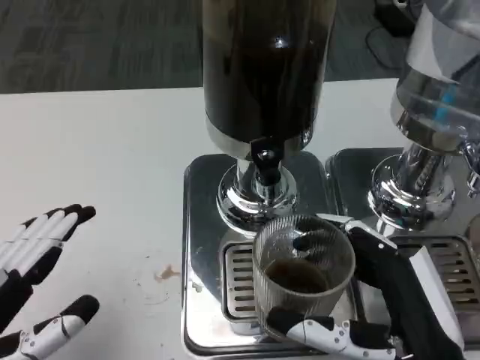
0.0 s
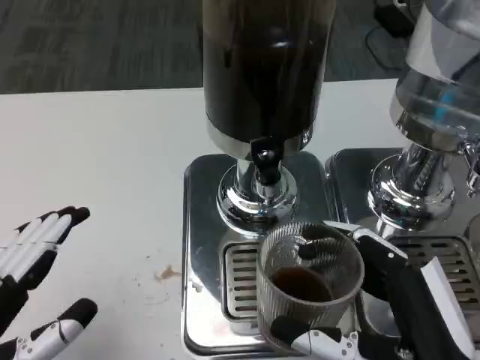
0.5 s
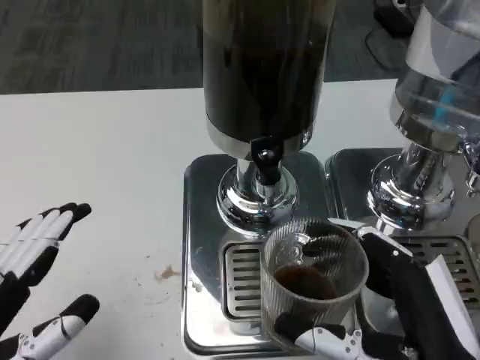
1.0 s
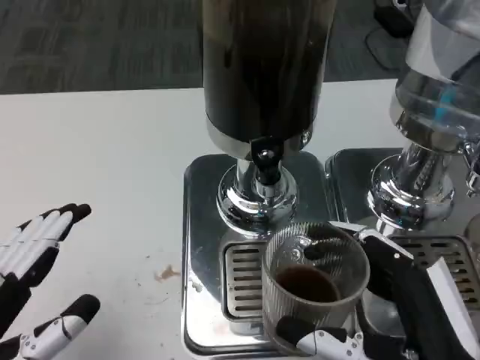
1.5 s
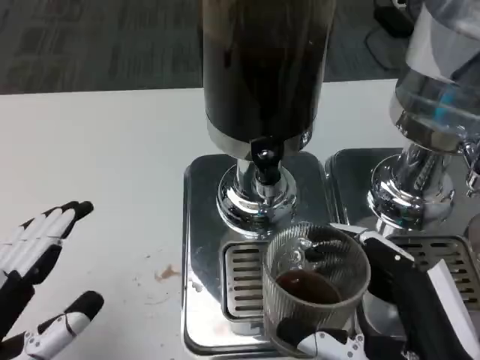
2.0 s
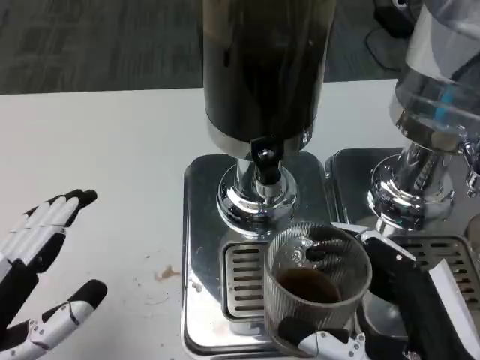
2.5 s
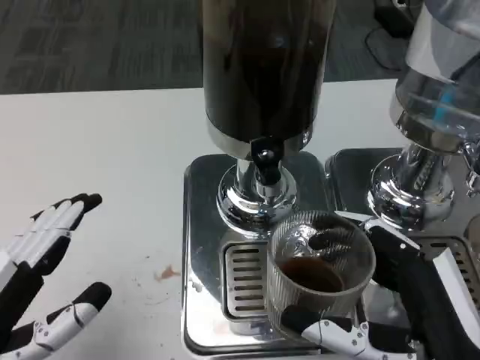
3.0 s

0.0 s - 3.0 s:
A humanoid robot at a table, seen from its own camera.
Task of the whole recording: Grasp the cup under the faucet to collect the drink, then remove the cup.
0.0 s - 1.5 s: The hands make only small movements.
1.5 s - 3.0 s: The two hands keep their place.

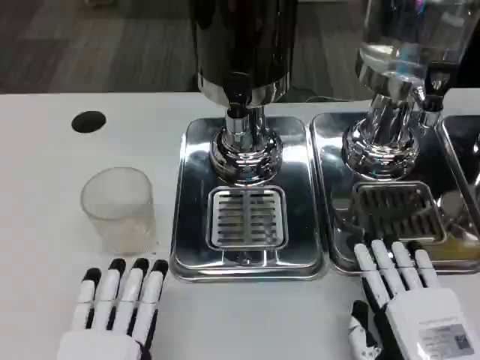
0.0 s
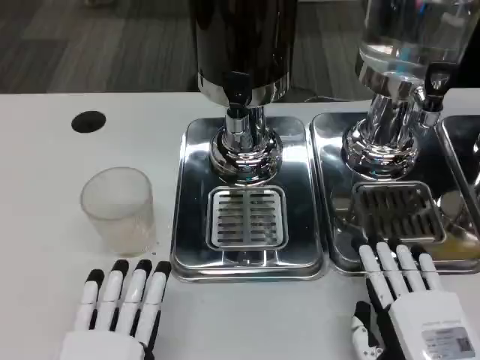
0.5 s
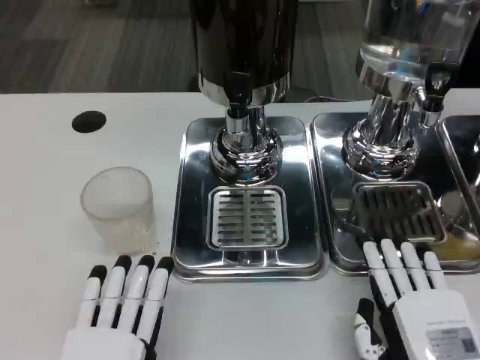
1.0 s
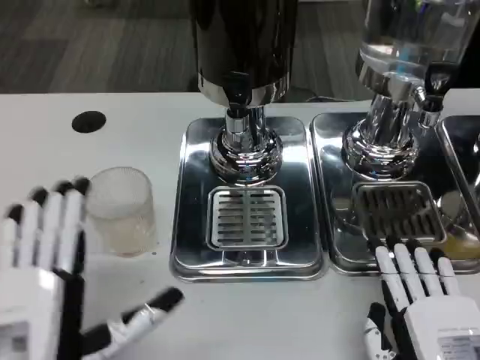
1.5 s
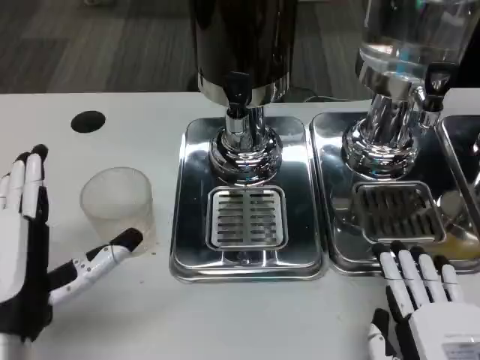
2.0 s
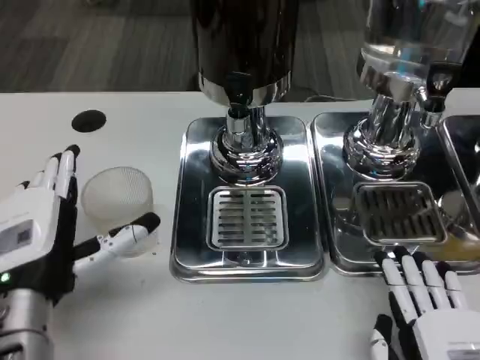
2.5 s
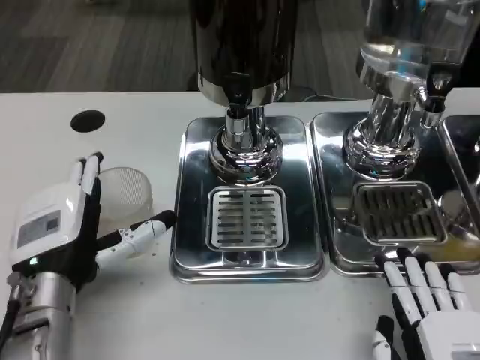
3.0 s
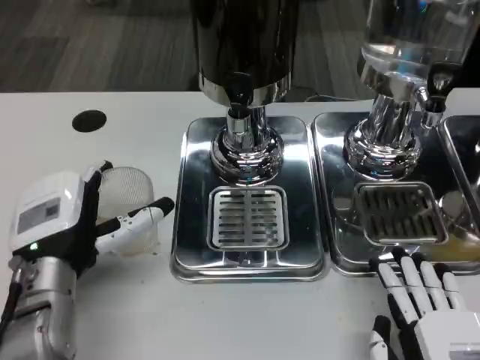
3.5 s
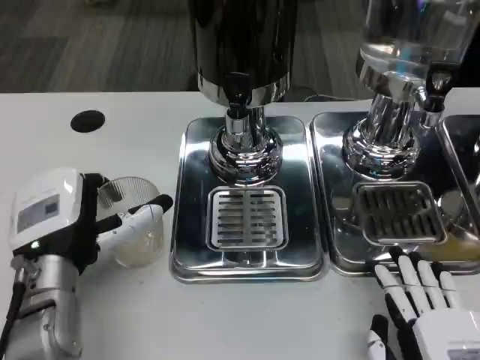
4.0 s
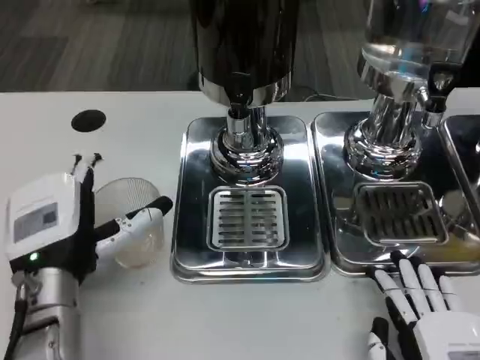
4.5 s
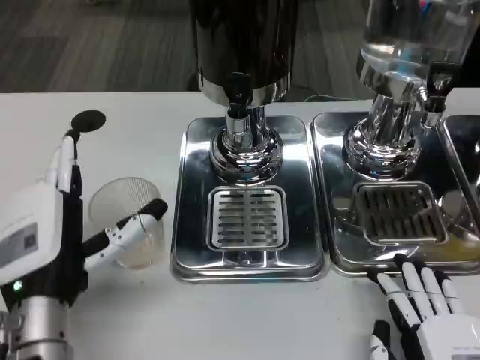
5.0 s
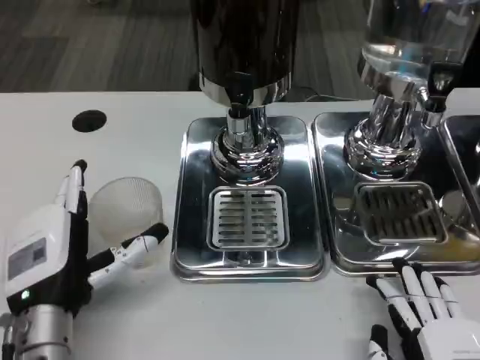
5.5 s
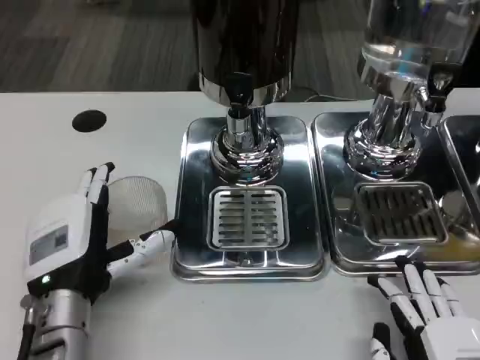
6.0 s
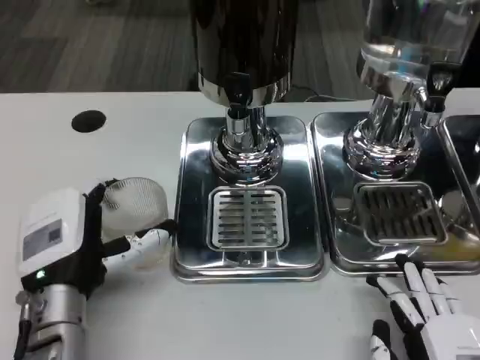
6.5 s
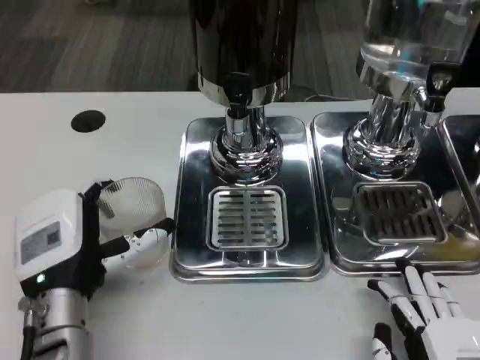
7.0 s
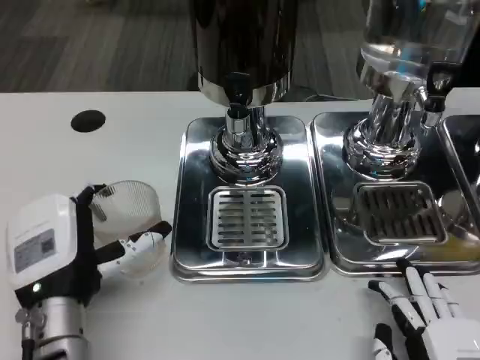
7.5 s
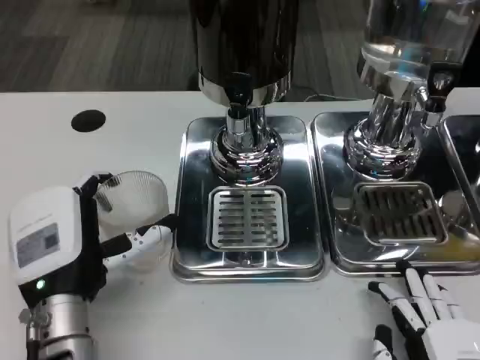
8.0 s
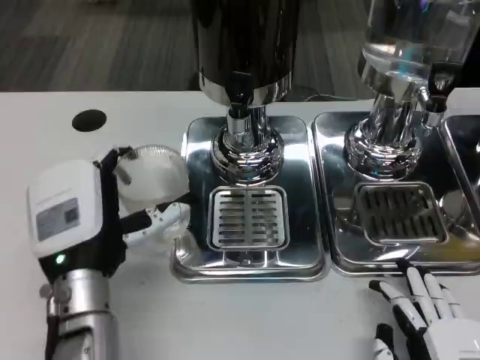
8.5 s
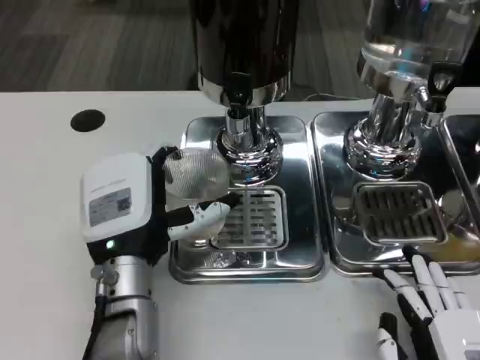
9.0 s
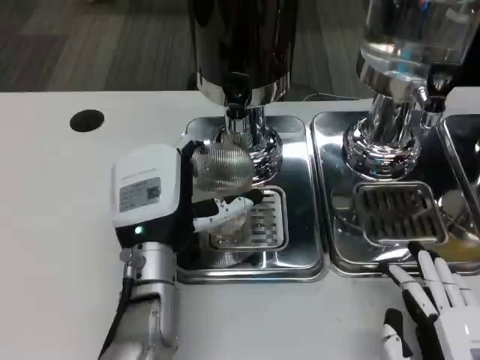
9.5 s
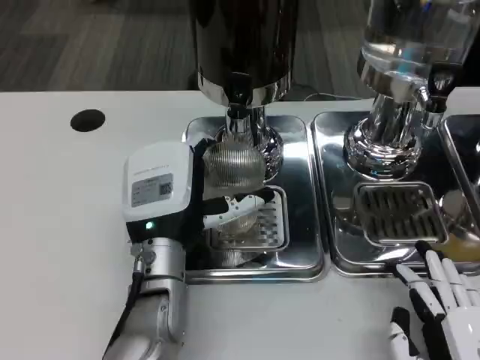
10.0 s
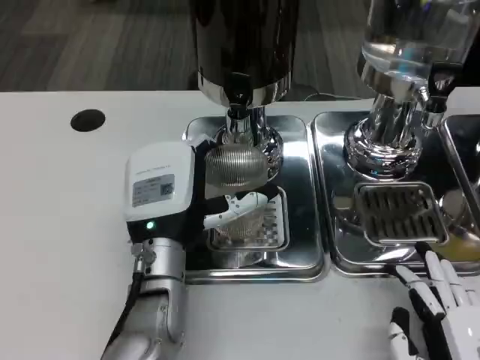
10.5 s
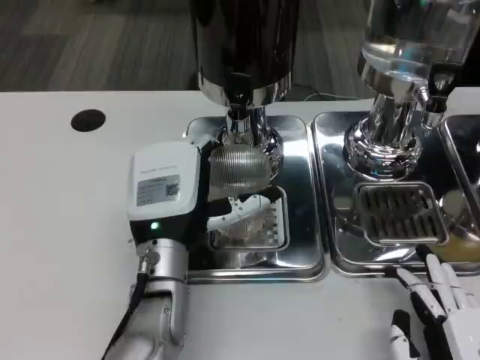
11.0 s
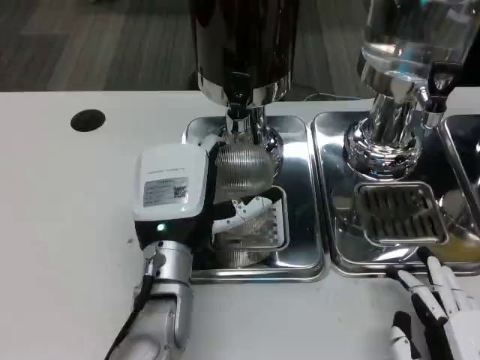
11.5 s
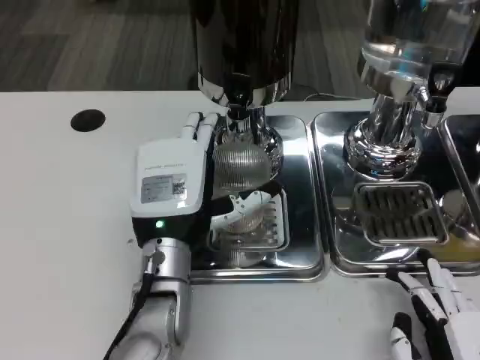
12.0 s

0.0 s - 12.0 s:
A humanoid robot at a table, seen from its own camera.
Task of the whole recording: Grasp the cup under the faucet to collect the drink, then remove the cup.
0.0 s - 2.0 s: The left hand travels forward and upward by some 10 cm.
2.0 s - 4.0 s: The left hand is displaced forward by roughly 5 cm.
4.0 s - 8.0 s: There are only small adjustments of the hands.
8.0 s - 10.0 s: The left hand shifts roughly 10 cm to the right and forward.
10.0 s - 12.0 s: There are only small adjustments of the hands.

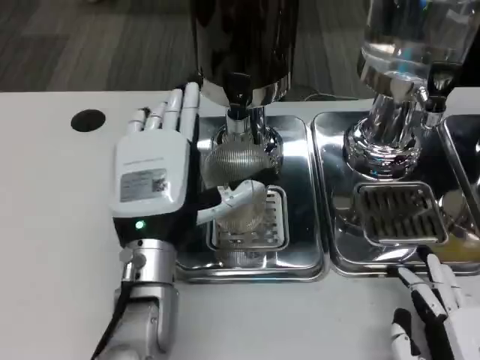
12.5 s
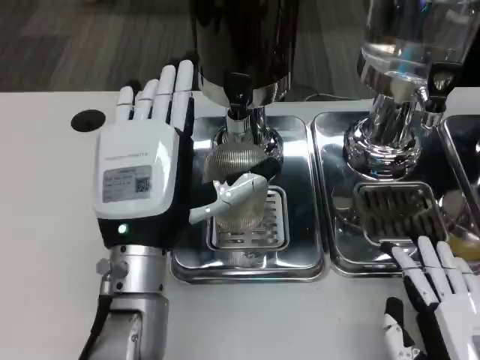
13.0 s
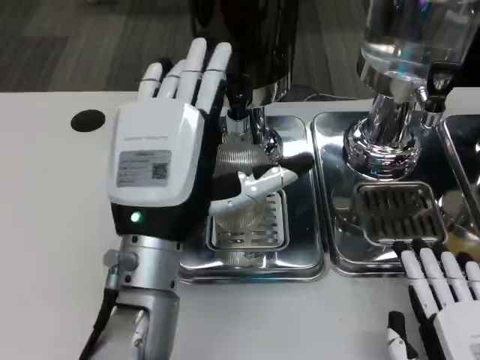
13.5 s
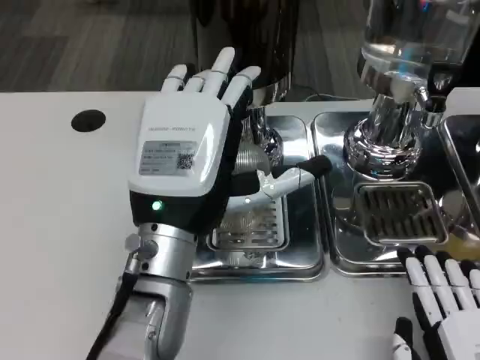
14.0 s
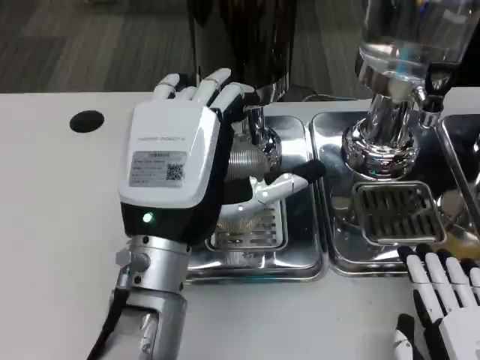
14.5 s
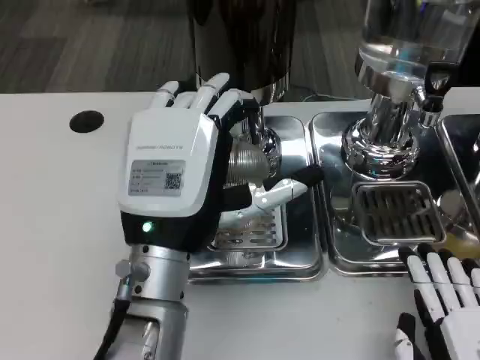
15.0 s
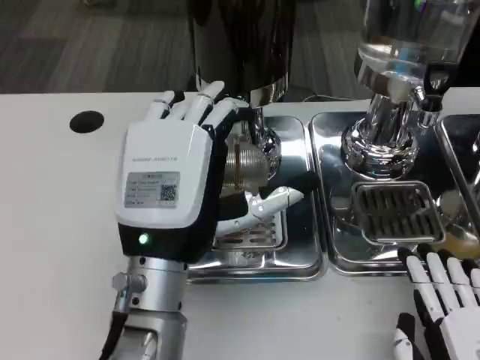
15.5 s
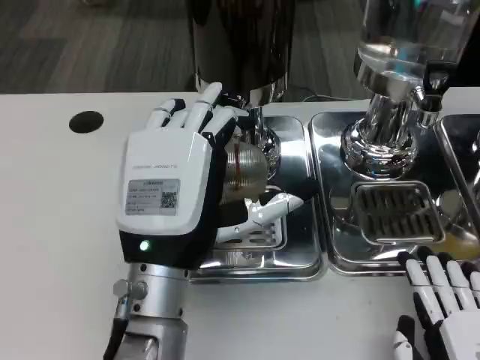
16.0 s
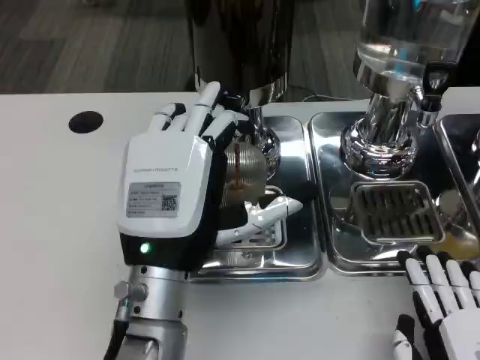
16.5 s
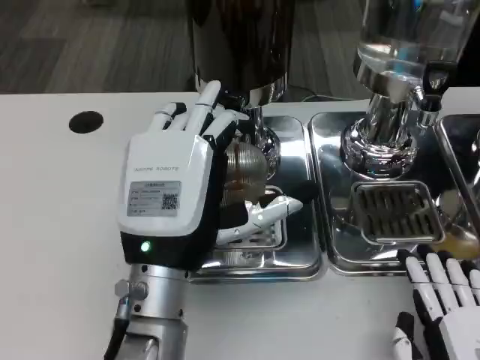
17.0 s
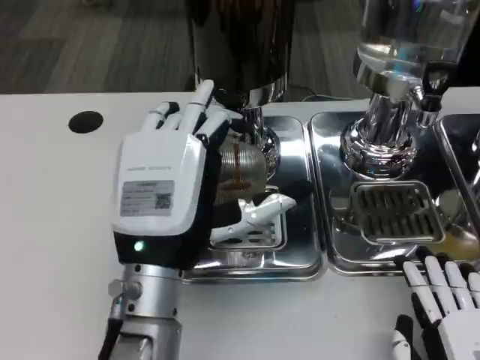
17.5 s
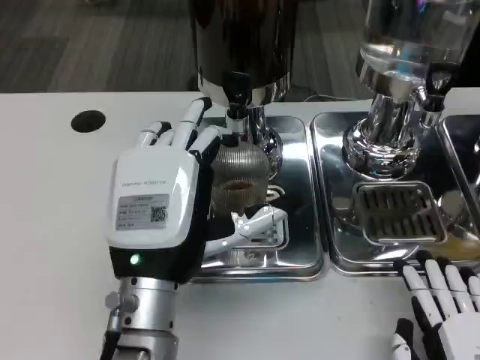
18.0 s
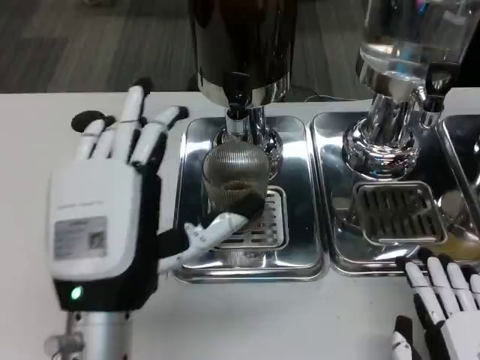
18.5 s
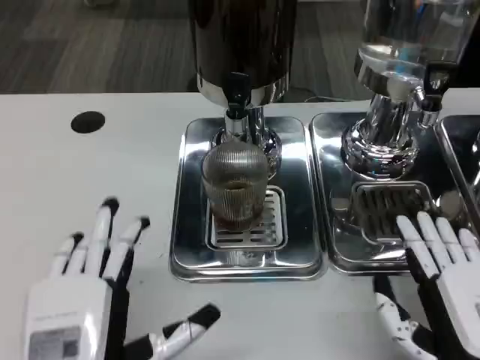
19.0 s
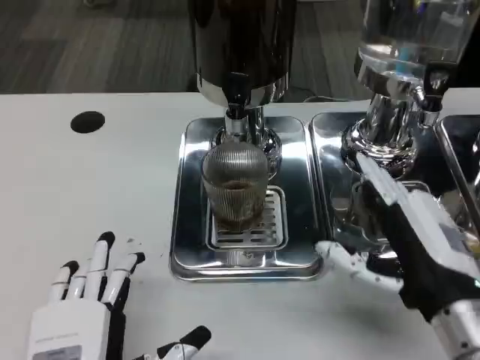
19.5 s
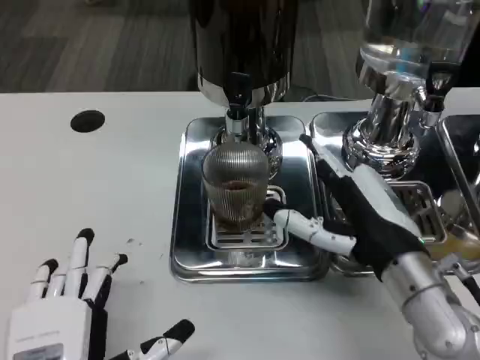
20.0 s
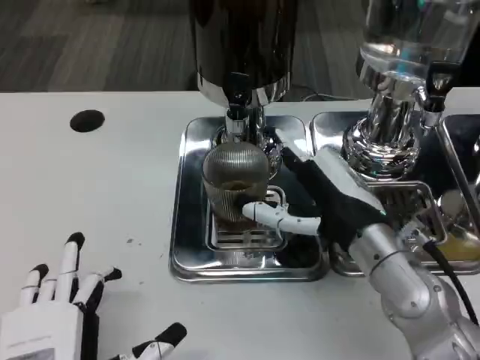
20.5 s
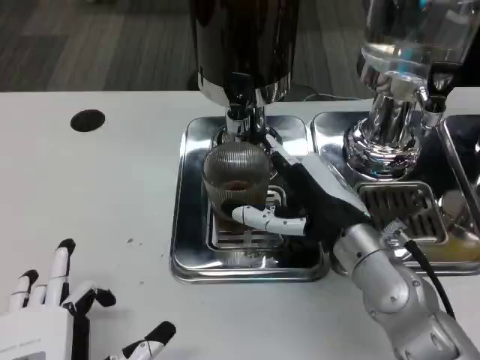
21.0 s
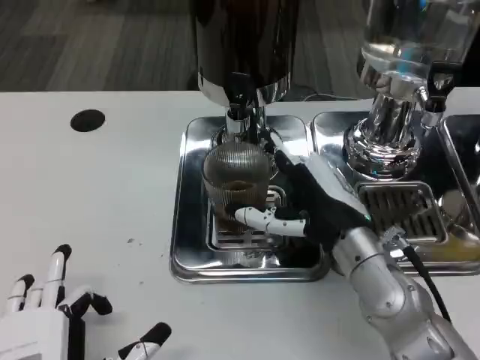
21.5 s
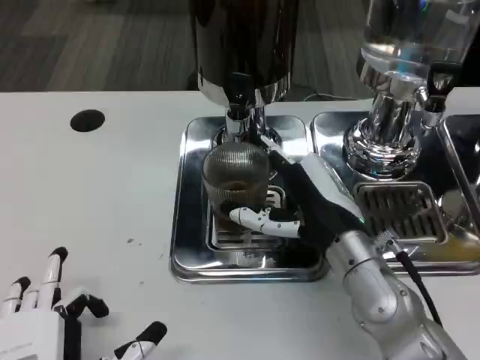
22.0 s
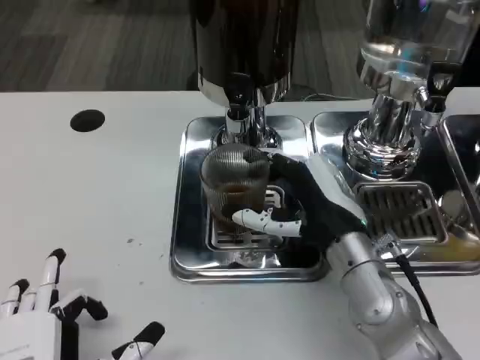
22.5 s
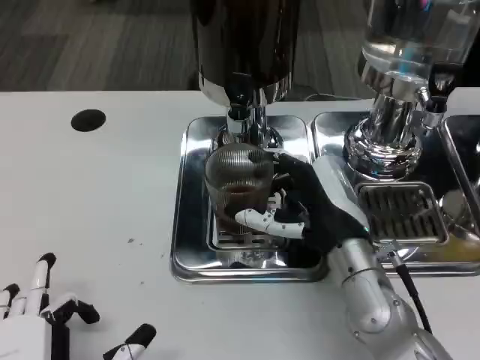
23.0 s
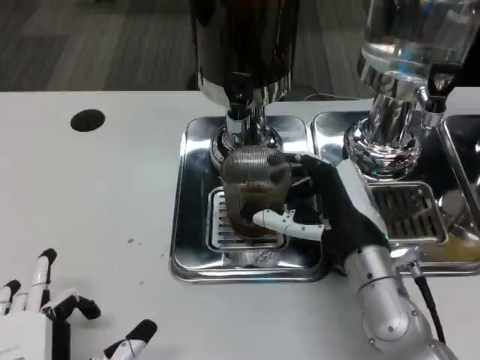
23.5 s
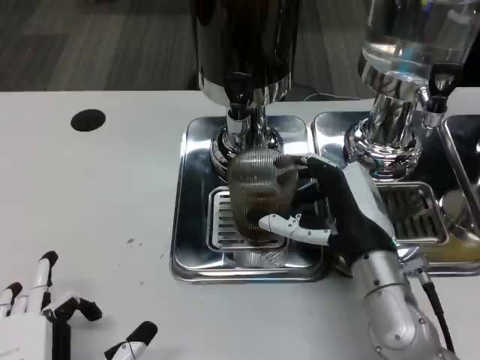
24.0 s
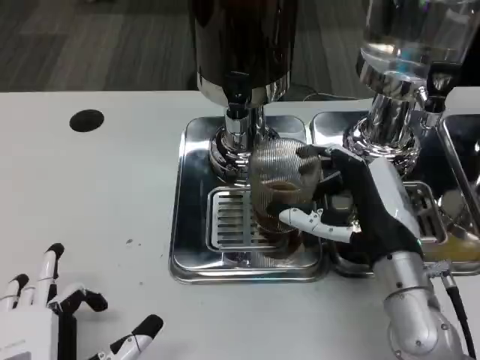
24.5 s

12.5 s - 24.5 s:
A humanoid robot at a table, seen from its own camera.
Task of the whole recording: Grasp the cup under the faucet to collect the drink, then remove the cup.
12.5 s - 14.5 s: The left hand goes roughly 5 cm upward.
14.5 s - 16.5 s: The hands stay close to where they were, moving slightly.
16.5 s - 18.5 s: The left hand changes place by approximately 5 cm.
18.5 s - 20.5 s: The right hand moves forward, upward and to the left, about 20 cm; the left hand travels backward and downward by about 10 cm.
20.5 s - 22.5 s: The hands move only a little.
